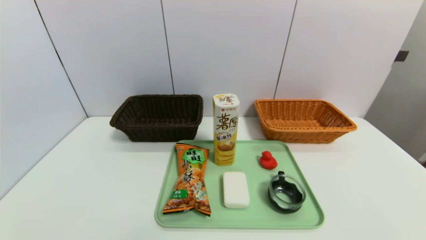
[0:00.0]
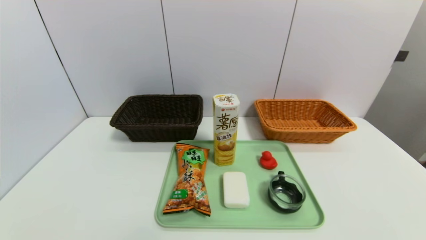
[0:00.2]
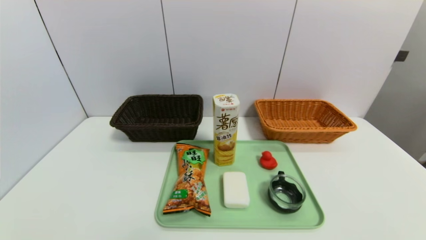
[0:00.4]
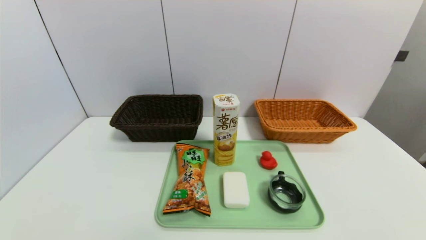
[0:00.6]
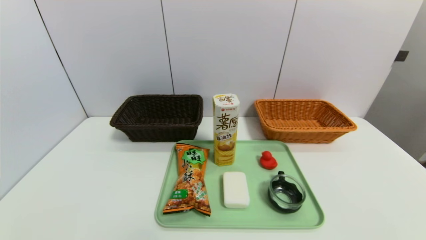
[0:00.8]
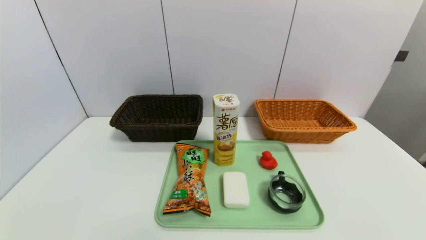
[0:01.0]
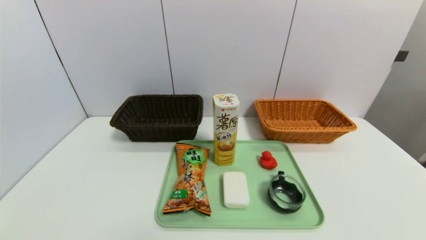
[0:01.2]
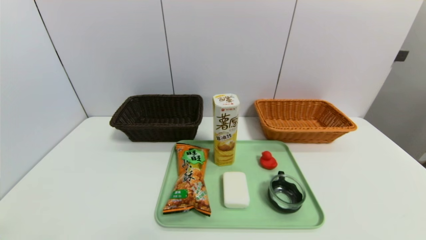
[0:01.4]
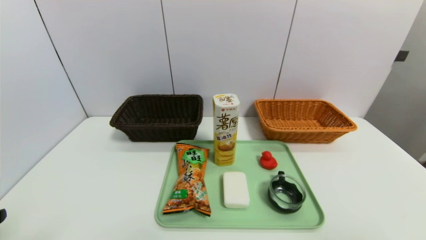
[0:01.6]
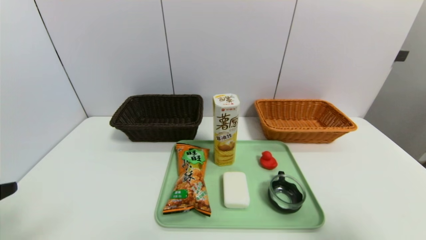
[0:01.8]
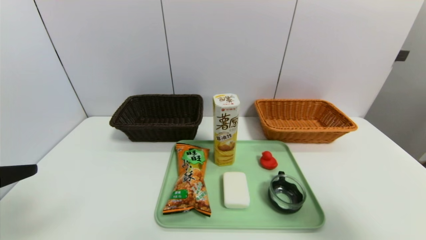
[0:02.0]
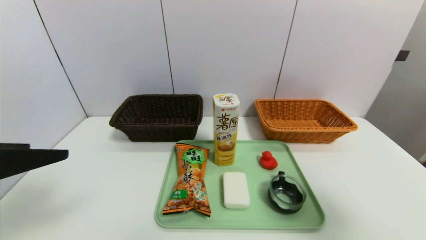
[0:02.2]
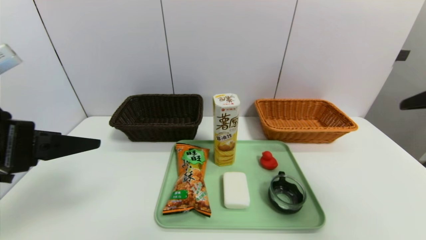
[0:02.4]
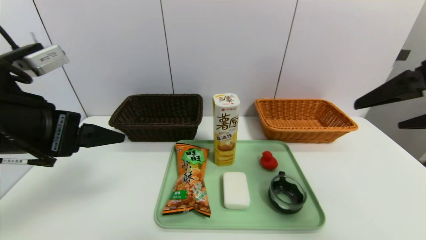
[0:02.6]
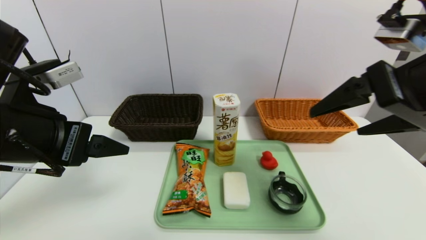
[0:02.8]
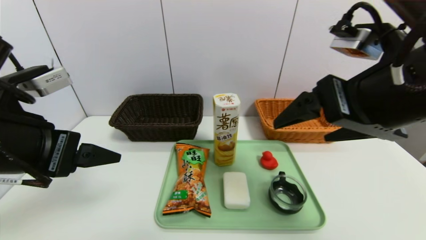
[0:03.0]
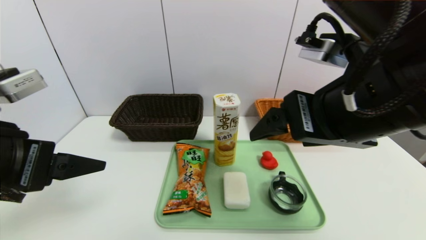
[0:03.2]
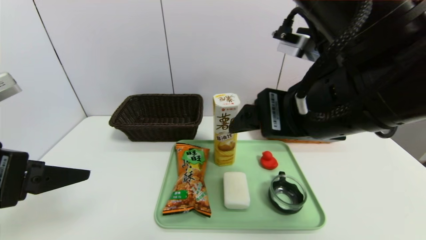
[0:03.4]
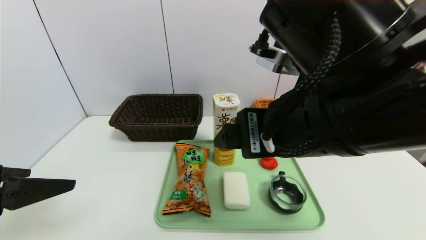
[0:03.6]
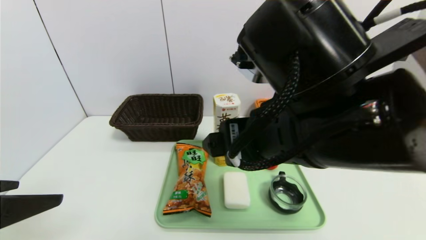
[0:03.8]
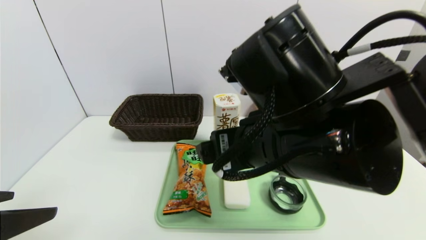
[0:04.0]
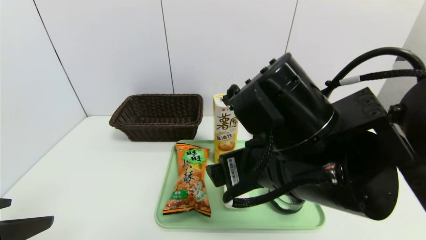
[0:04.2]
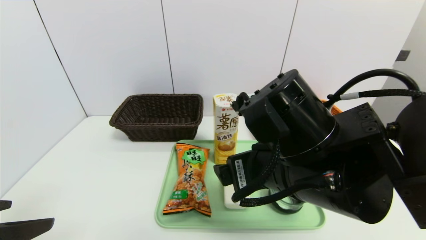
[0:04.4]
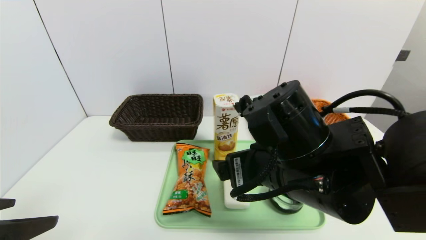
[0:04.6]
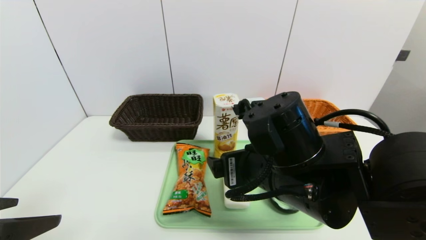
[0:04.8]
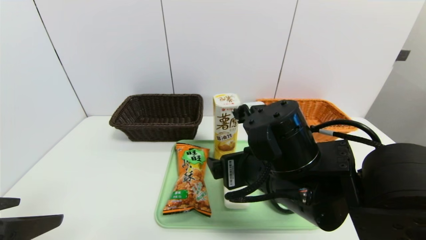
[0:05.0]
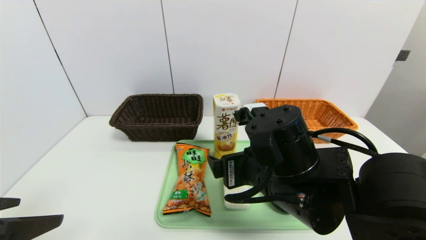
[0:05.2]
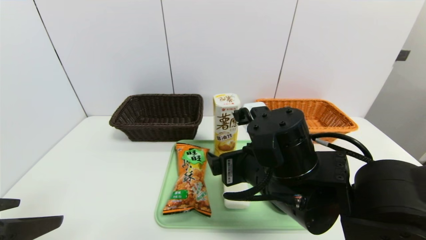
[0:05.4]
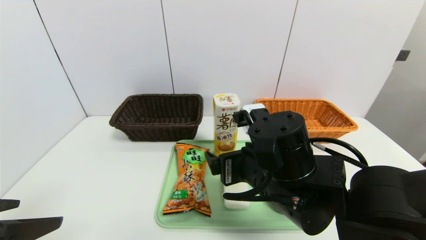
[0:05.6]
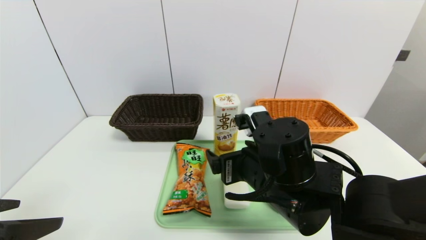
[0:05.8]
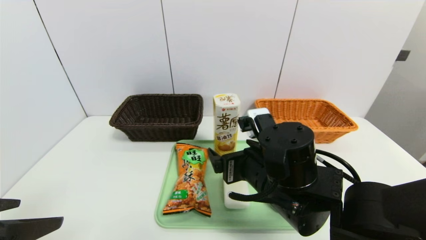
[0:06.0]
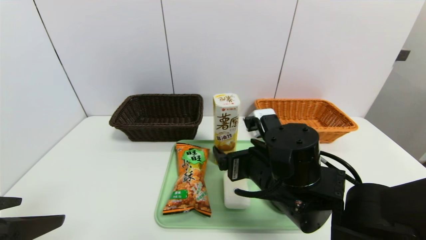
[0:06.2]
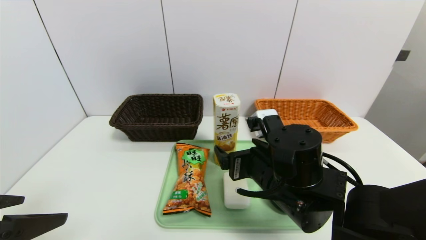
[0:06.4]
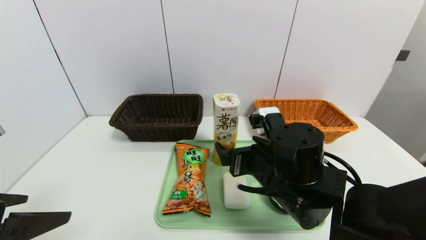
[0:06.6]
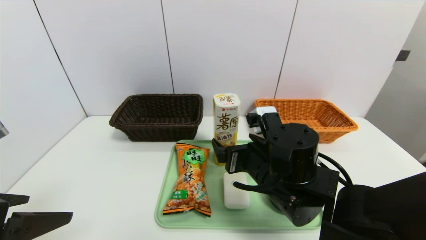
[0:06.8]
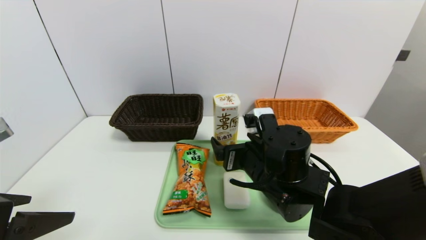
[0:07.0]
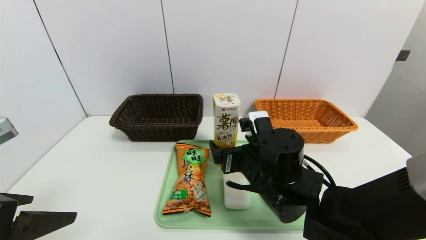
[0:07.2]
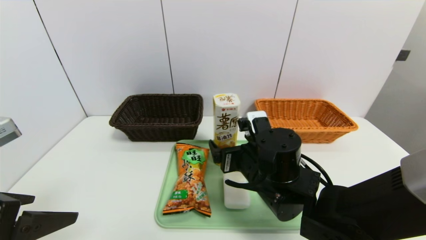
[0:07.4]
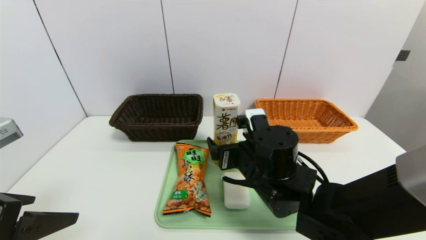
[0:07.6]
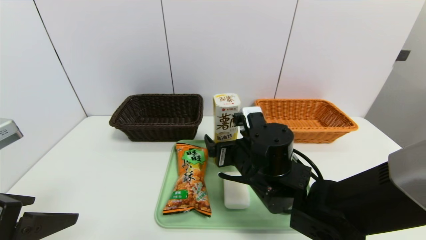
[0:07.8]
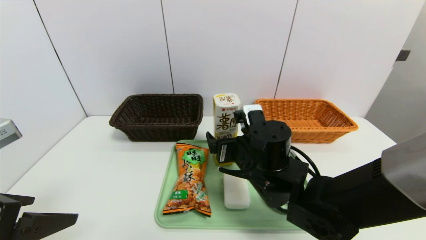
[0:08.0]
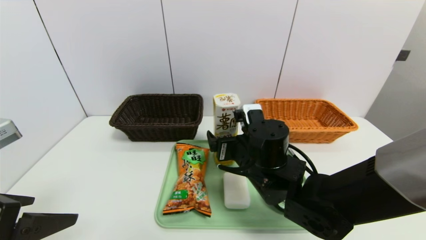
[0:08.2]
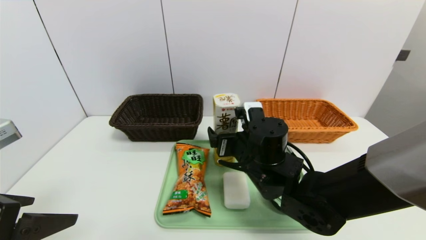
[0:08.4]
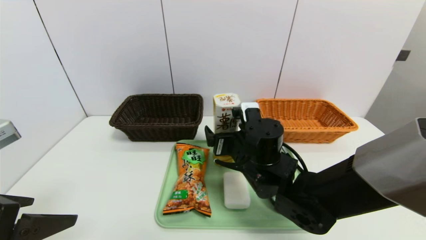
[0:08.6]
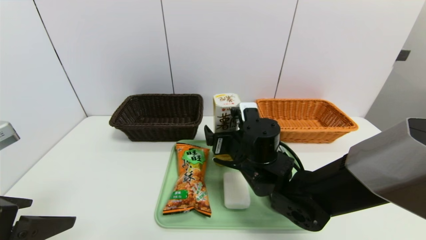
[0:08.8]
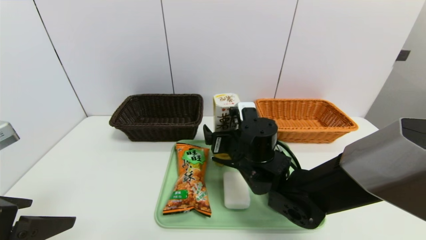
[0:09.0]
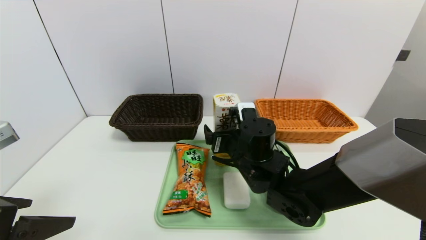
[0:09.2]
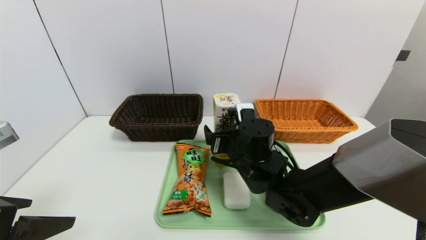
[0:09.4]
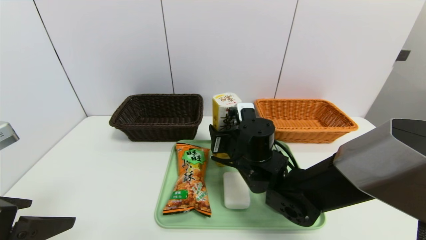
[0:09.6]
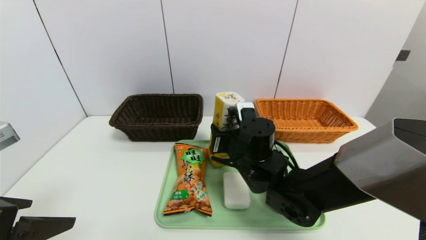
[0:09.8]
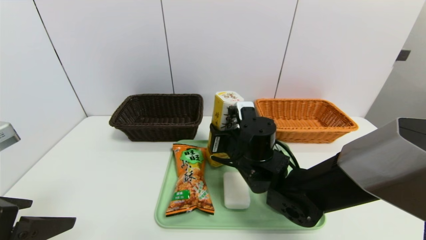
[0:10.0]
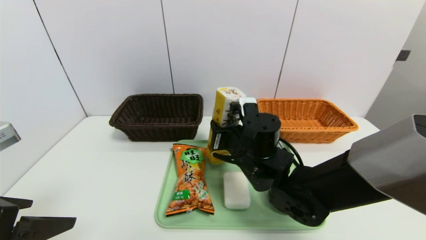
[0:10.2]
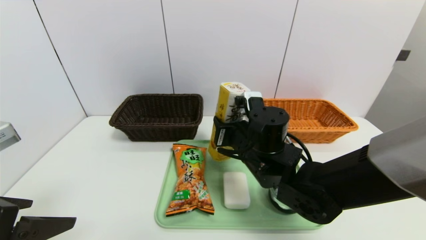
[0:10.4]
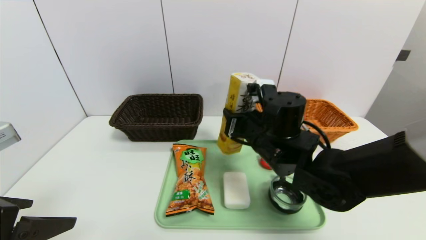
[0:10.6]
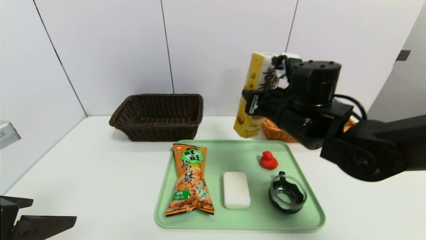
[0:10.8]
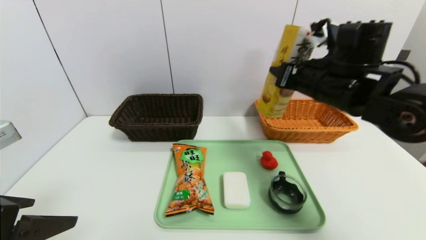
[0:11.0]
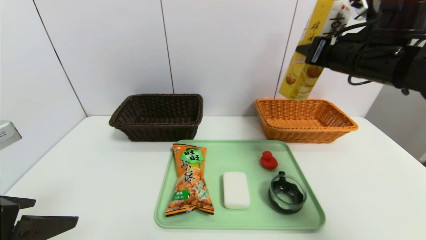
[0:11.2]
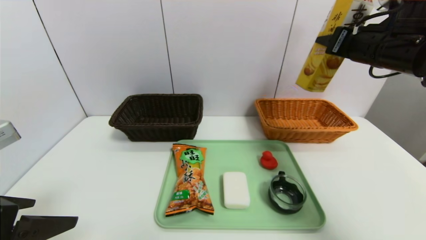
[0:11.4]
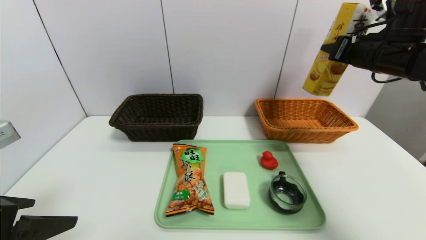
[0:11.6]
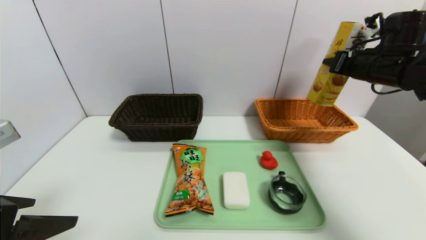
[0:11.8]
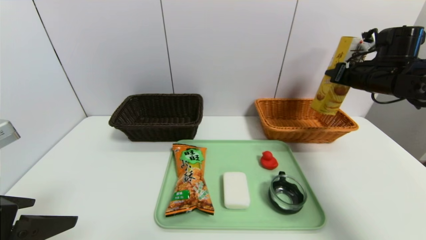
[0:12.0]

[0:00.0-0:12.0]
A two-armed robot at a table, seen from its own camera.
Task of the whole recording: place the food in the right basket with the right gripper, and place the non food items in the left basket with the left gripper.
0:01.6 to 0:03.0: The left gripper travels forward and to the right by some 15 cm, while the right gripper travels to the left and forward by about 25 cm.
0:03.0 to 0:04.4: The right gripper goes roughly 15 cm downward and to the left, while the left gripper is displaced backward by some 10 cm.
0:04.4 to 0:06.0: The right gripper goes about 5 cm downward.
0:06.0 to 0:07.6: The grippers make only small movements.
0:07.6 to 0:09.0: The grippers stay close to where they were, moving slightly.
0:09.0 to 0:10.4: The right gripper closes up.
0:10.4 to 0:12.0: The right gripper heads to the right, covering roughly 25 cm.

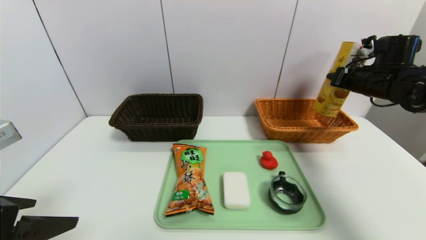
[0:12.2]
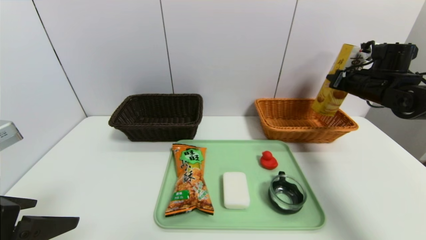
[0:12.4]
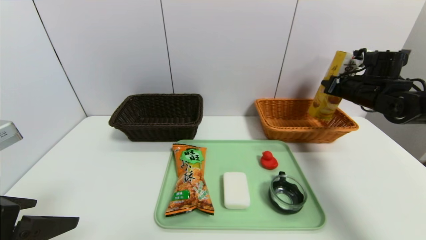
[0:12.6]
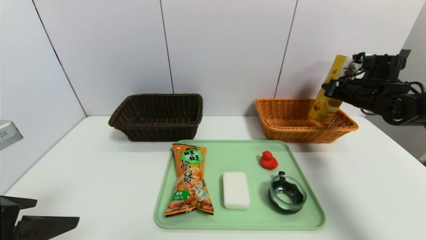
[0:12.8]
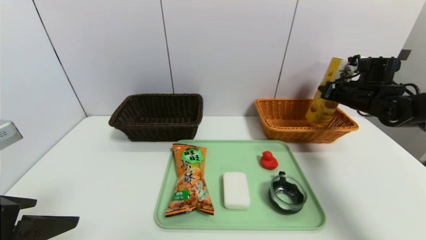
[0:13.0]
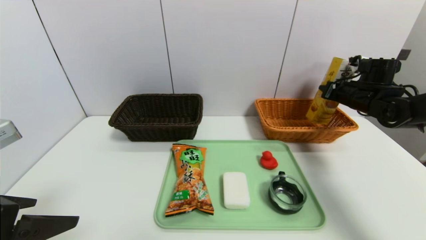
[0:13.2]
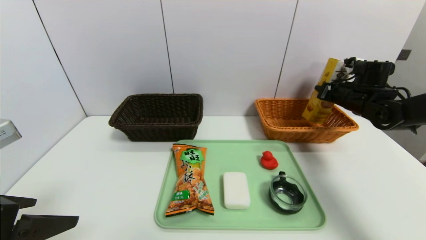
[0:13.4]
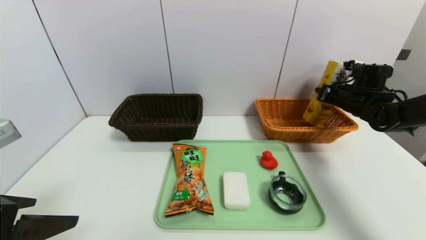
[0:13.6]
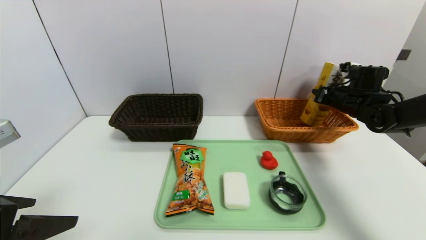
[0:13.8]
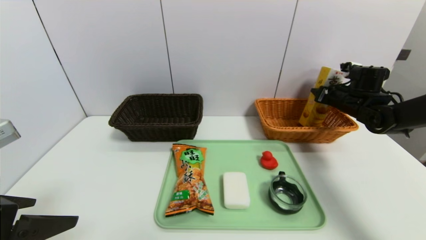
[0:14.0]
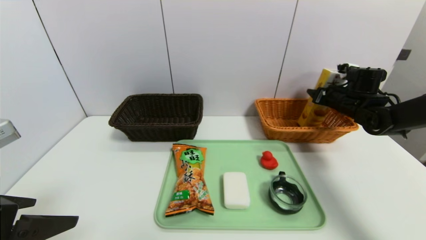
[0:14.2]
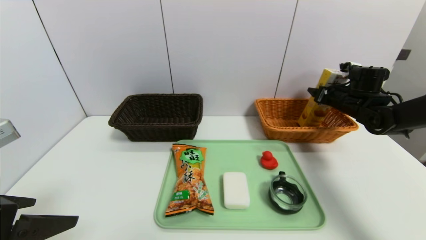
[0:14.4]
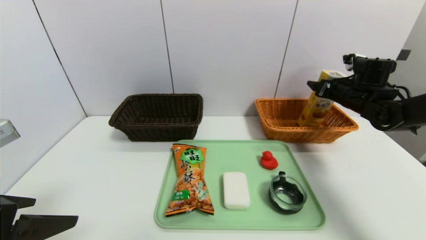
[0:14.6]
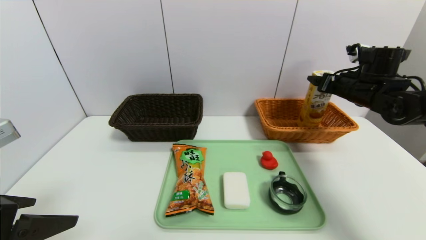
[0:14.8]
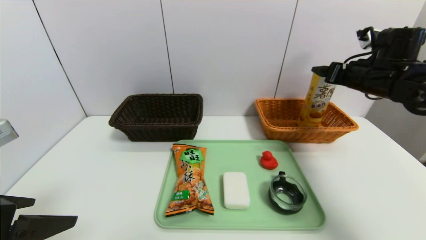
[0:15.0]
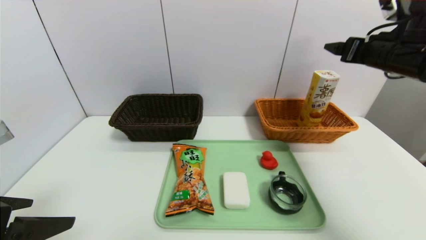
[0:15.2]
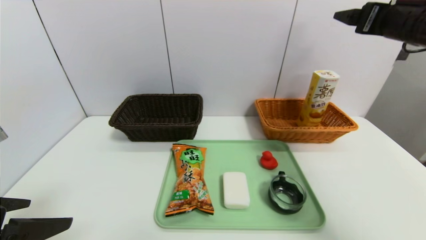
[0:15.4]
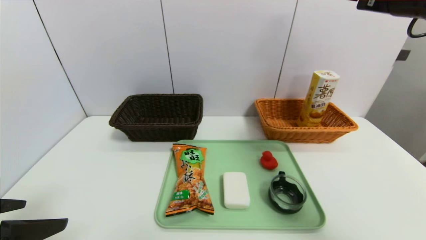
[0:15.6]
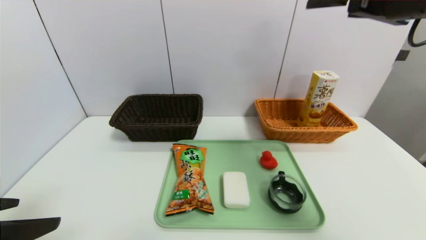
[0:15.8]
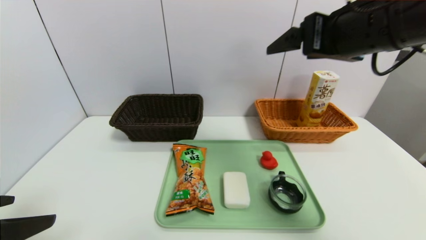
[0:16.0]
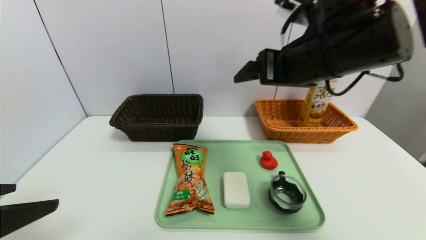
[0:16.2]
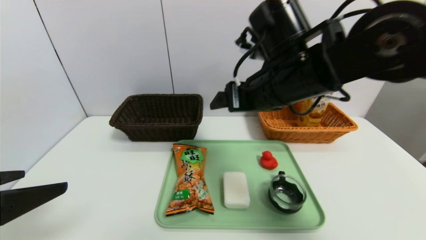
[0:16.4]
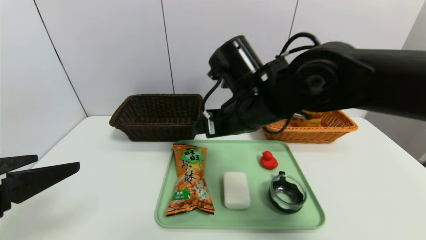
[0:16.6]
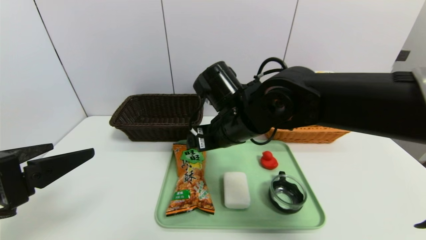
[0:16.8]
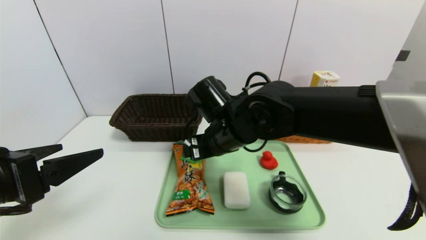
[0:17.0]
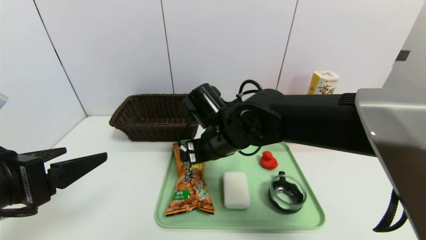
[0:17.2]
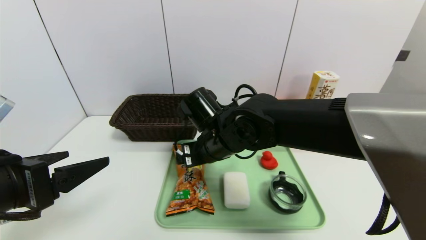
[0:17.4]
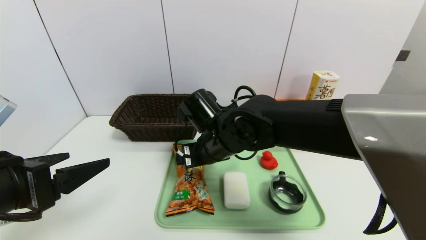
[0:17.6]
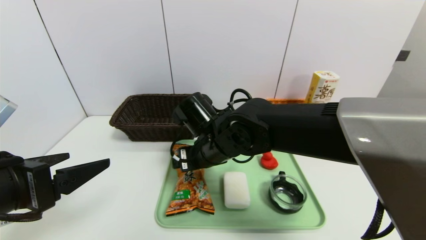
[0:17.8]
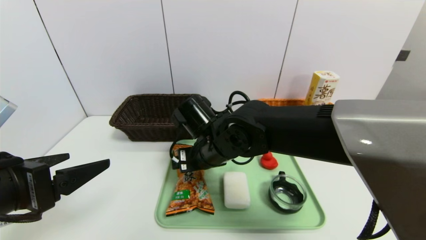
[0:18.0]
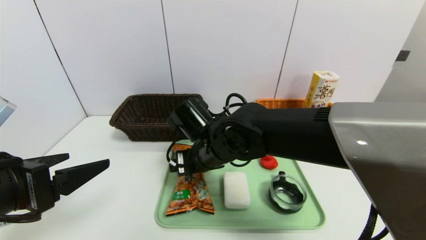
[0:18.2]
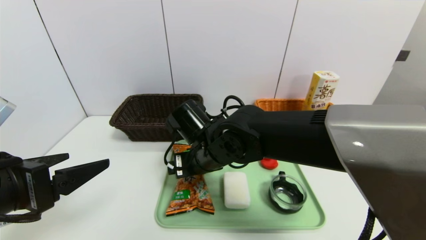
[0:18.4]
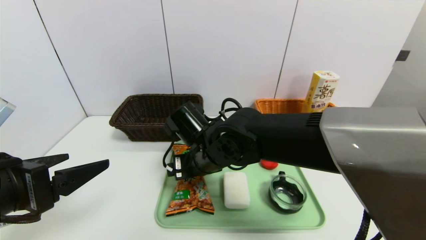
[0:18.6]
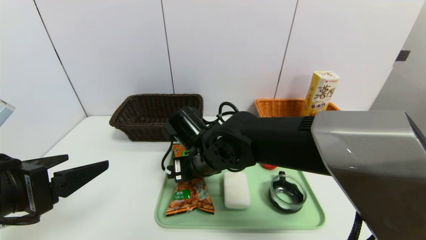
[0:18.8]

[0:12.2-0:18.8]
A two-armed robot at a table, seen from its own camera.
Task of the whole recording: place the food in the right basket with the right gripper, and place the non food items in the left basket with the left gripper.
Step, 0:12.2 to 0:15.0: Grasp the potato chips and put it in the right basket.
0:12.2 to 0:13.8: The right gripper travels downward by about 5 cm.
0:13.8 to 0:15.4: The right gripper shifts some 25 cm upward and backward, and opens its fingers.
0:15.4 to 0:17.2: The right gripper goes approximately 35 cm to the left and downward.
